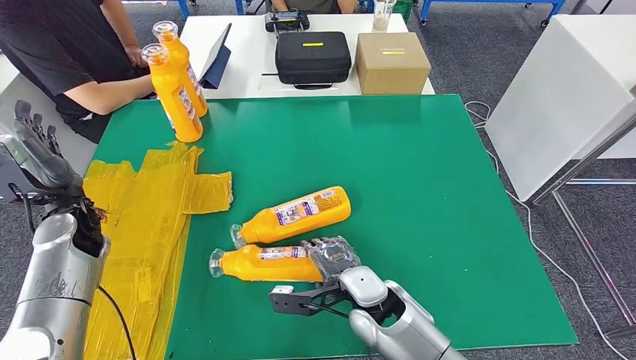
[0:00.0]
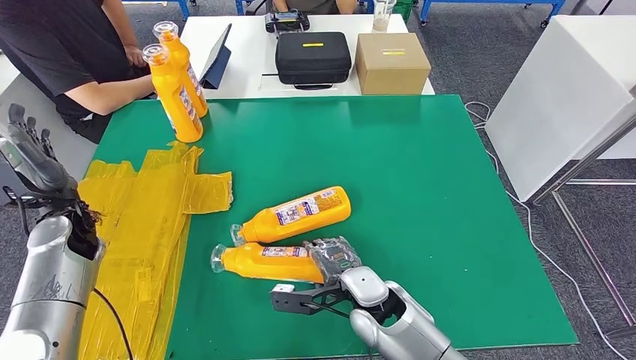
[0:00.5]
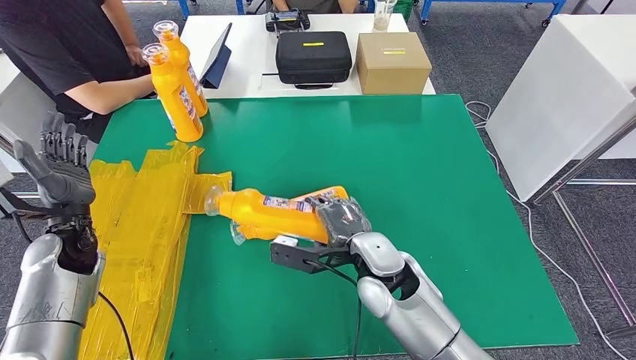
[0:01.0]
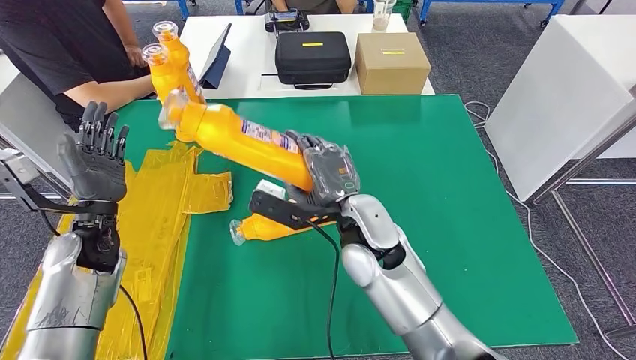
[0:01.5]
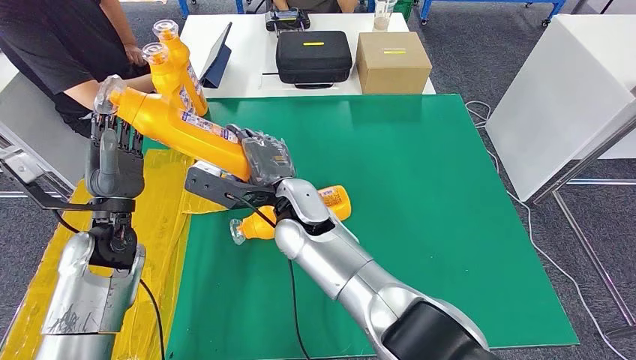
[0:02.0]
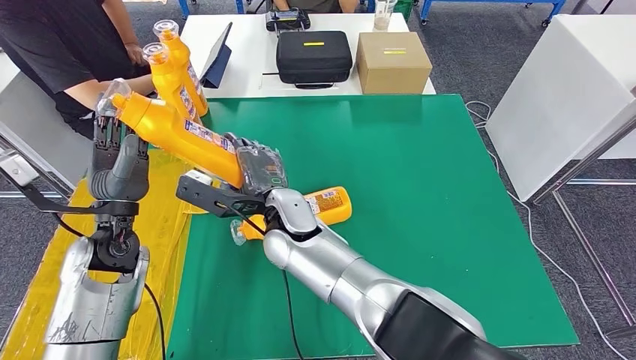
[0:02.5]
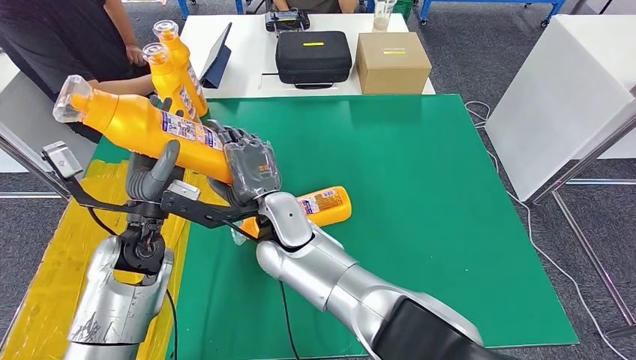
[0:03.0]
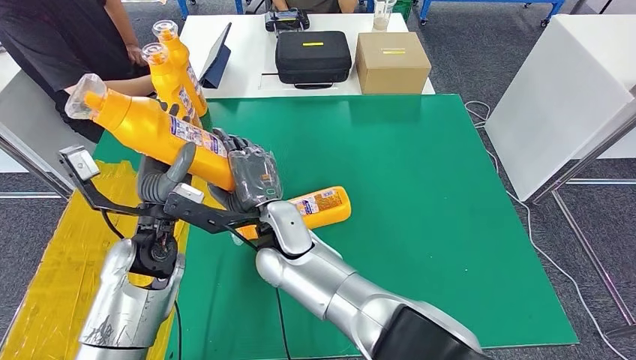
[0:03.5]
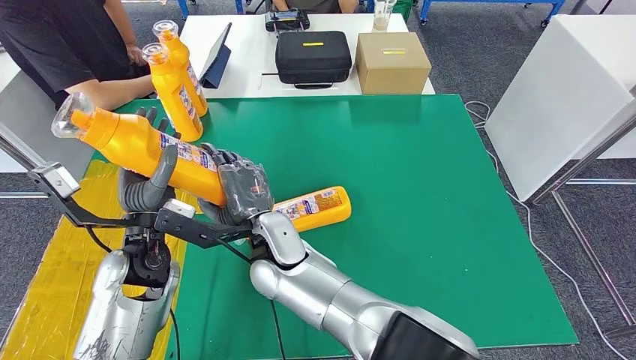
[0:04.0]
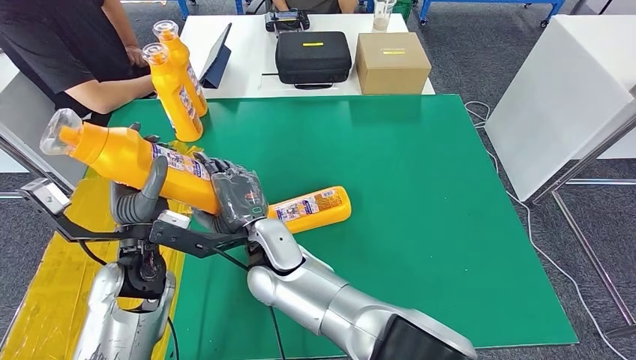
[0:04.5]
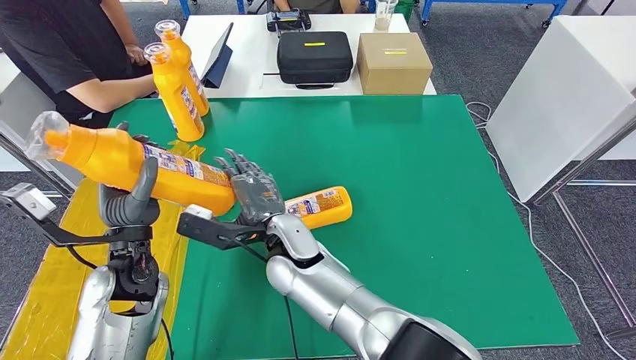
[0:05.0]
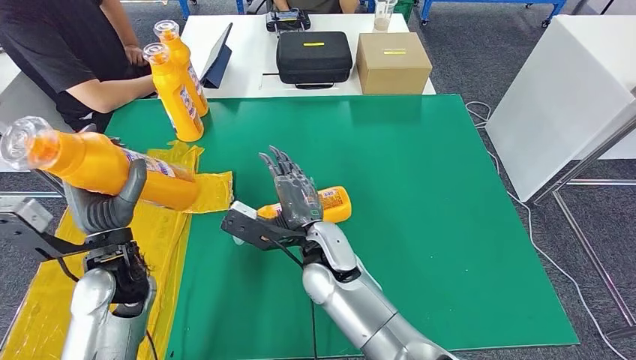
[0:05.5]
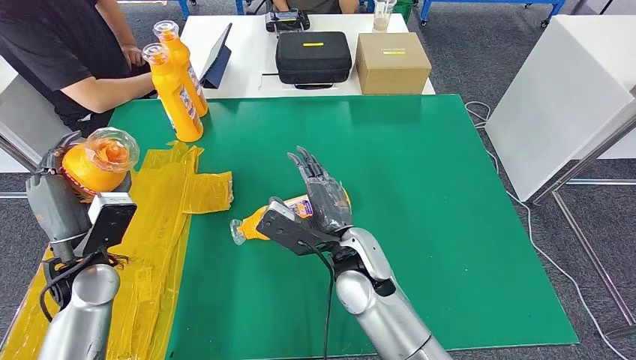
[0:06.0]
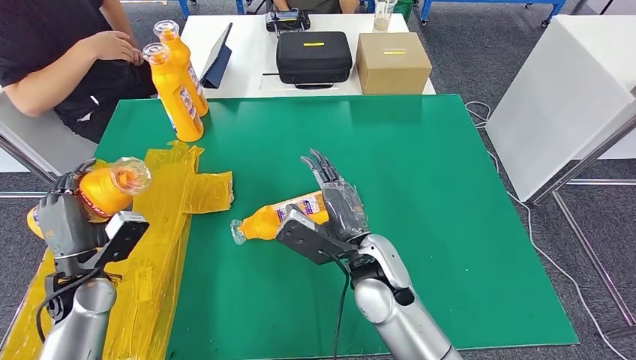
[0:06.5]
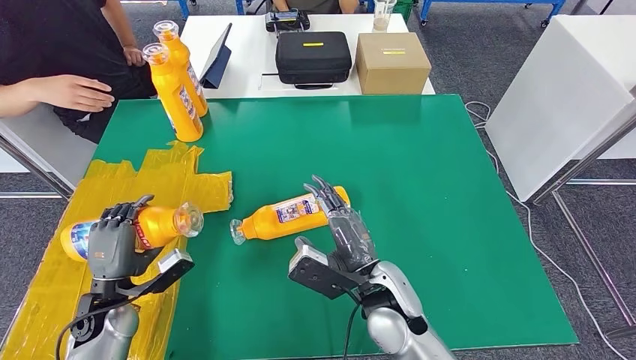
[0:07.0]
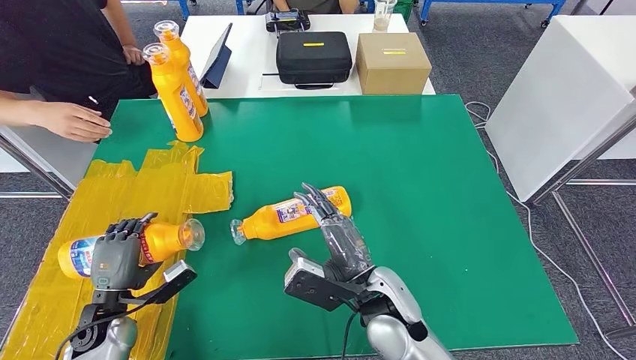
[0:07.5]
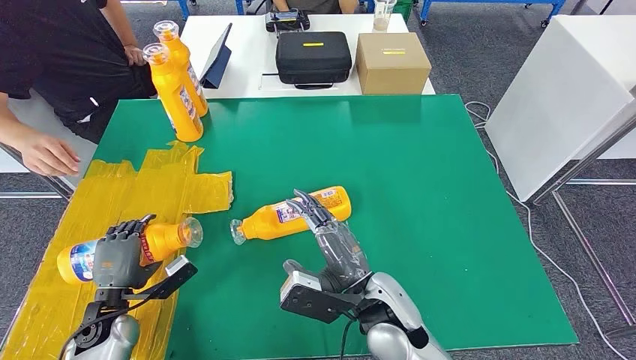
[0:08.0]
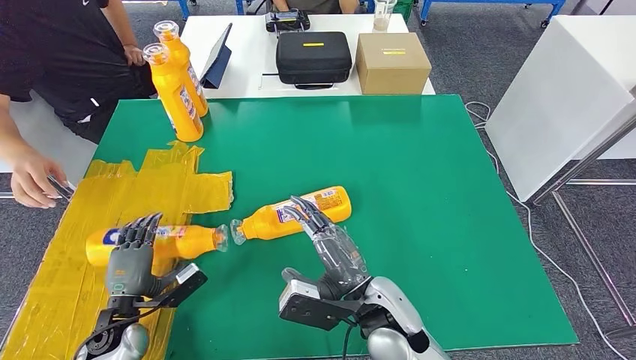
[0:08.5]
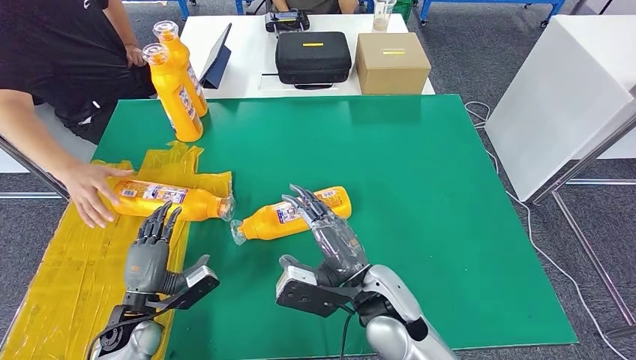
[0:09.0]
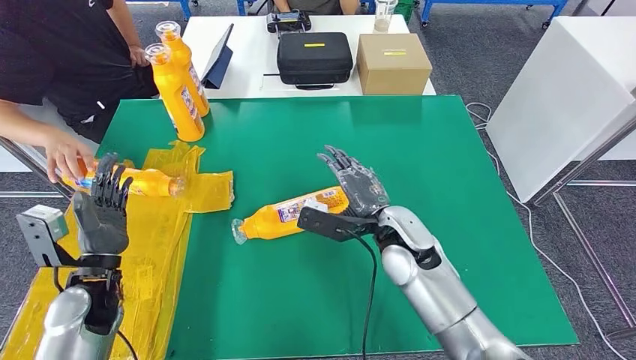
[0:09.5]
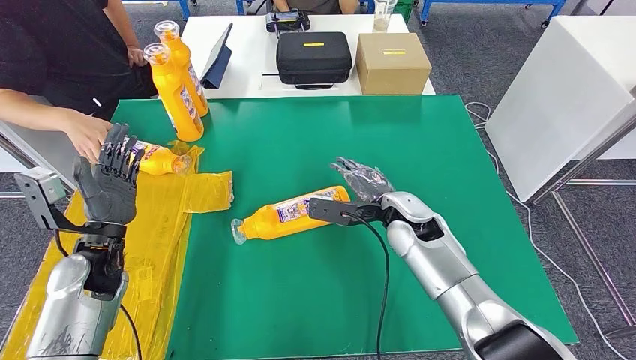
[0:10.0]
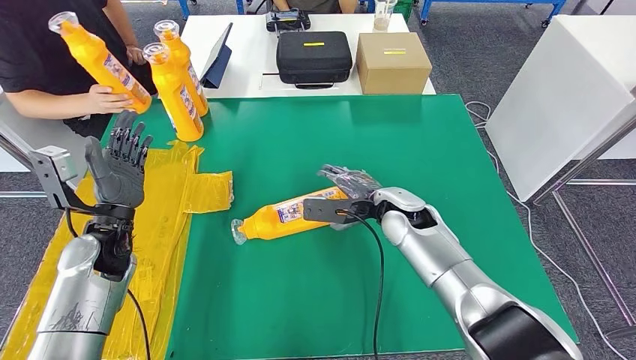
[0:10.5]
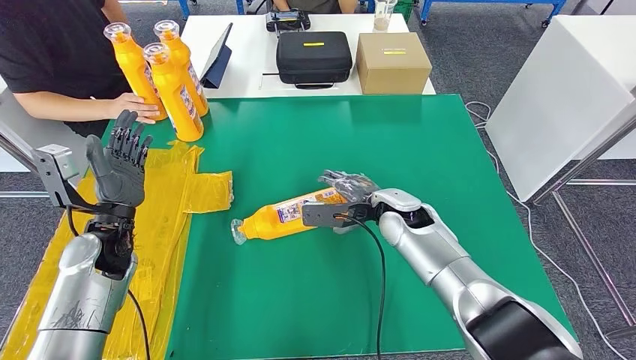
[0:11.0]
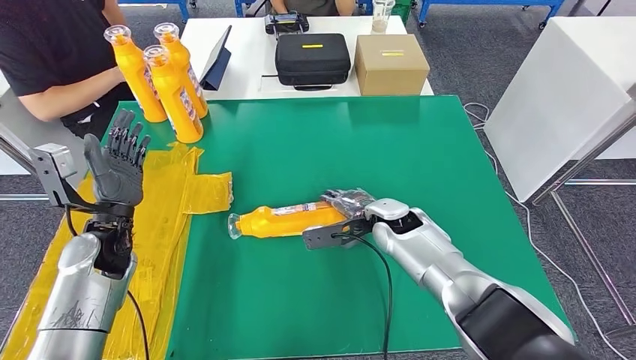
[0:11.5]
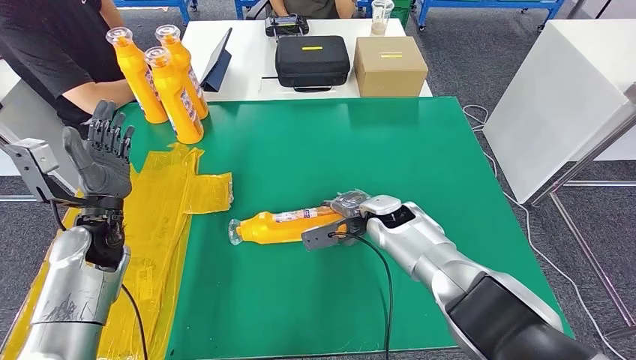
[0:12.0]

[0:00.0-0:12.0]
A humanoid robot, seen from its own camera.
Step, 0:02.0 to 0:08.0: Flip the bottle to face forward.
0:06.0 to 0:08.0: The left hand goes roughly 15 cm downward; the right hand shifts roughly 5 cm backward.

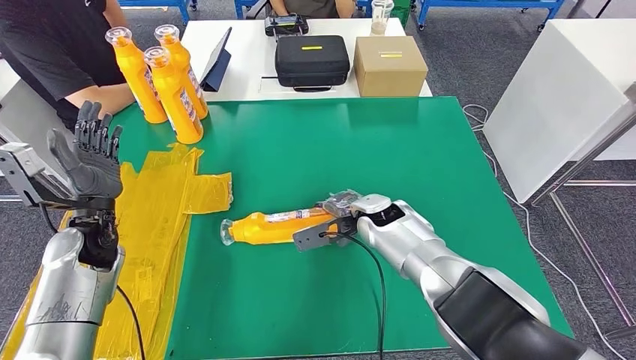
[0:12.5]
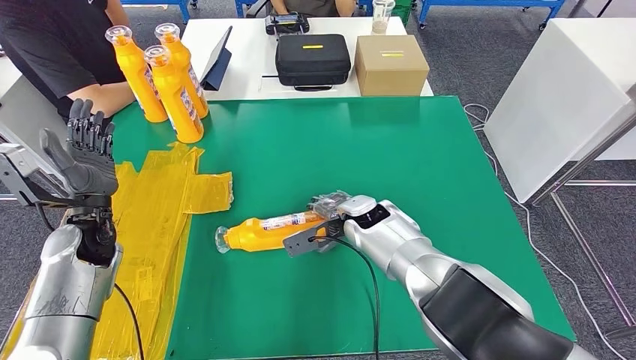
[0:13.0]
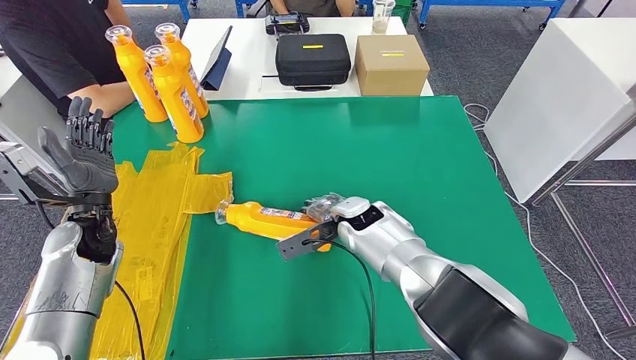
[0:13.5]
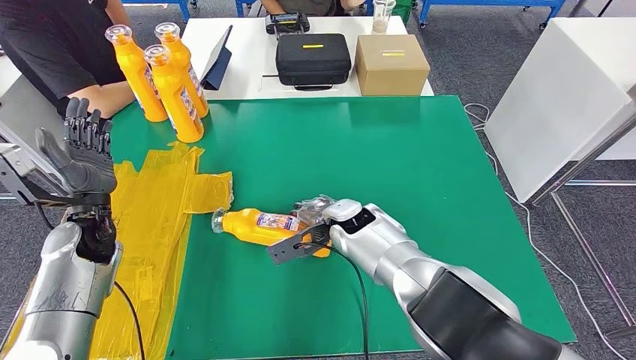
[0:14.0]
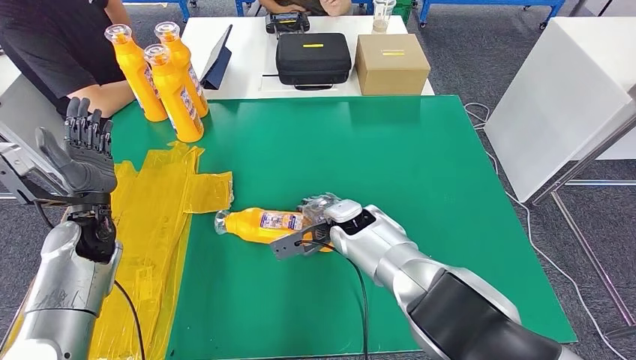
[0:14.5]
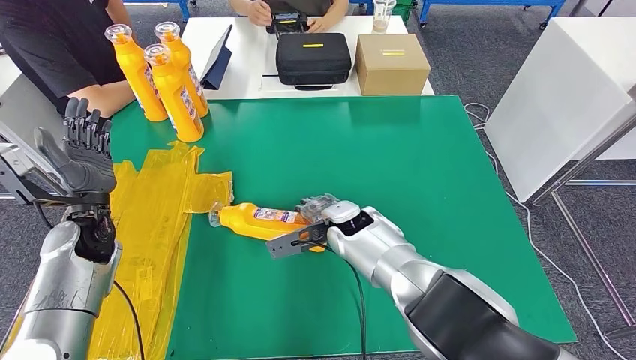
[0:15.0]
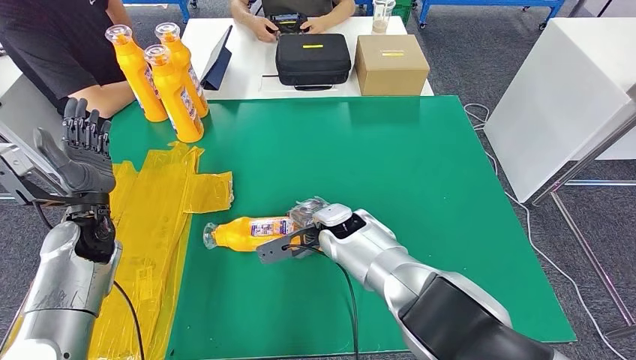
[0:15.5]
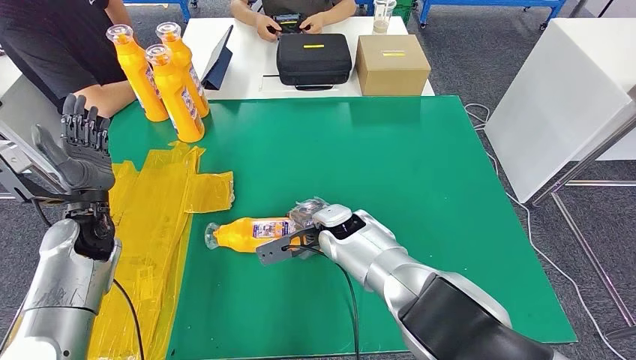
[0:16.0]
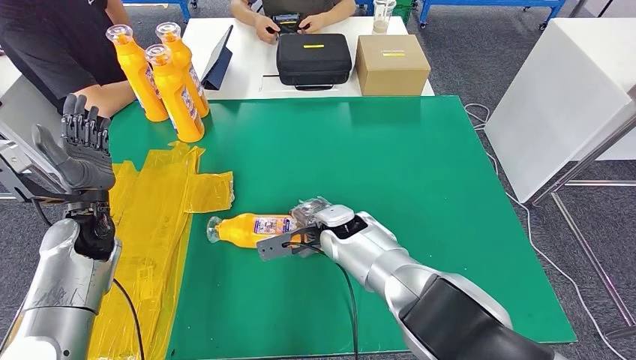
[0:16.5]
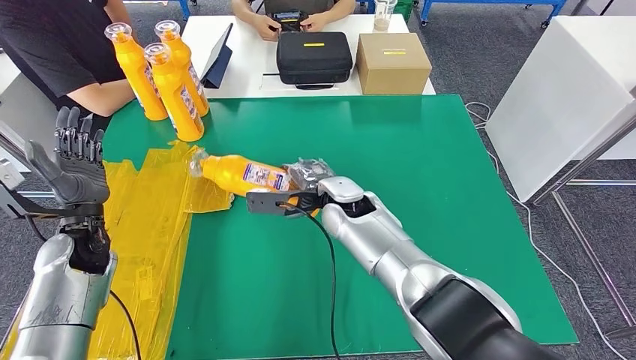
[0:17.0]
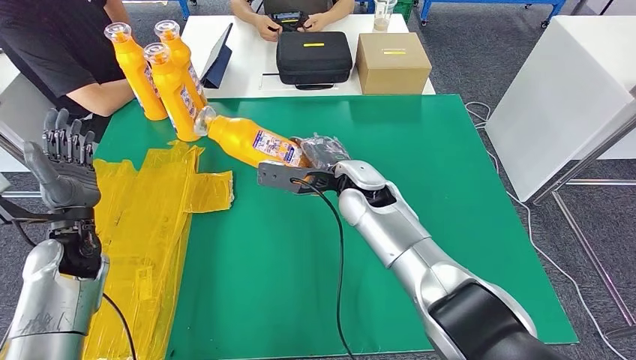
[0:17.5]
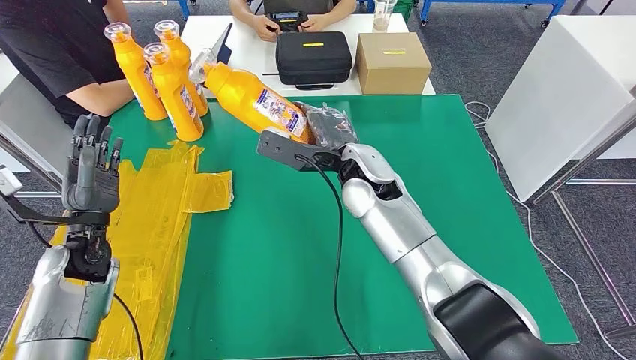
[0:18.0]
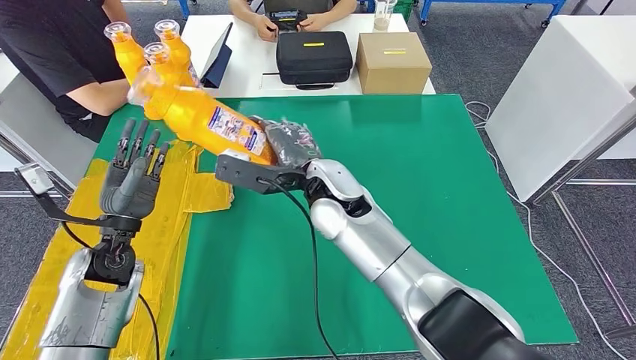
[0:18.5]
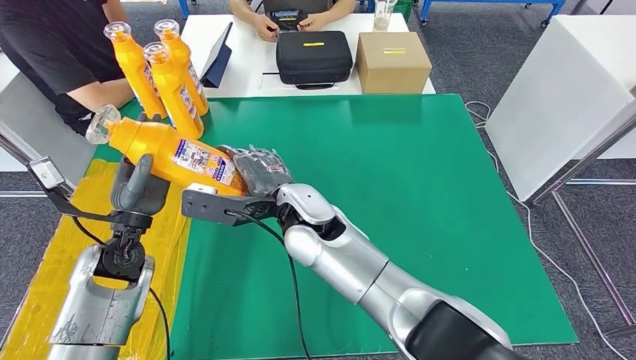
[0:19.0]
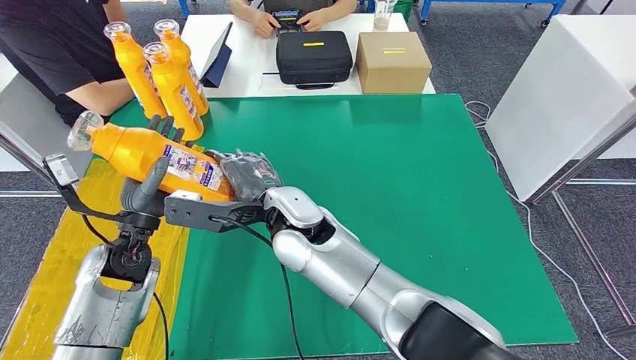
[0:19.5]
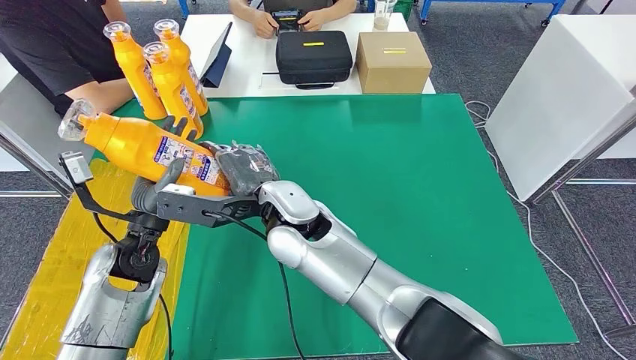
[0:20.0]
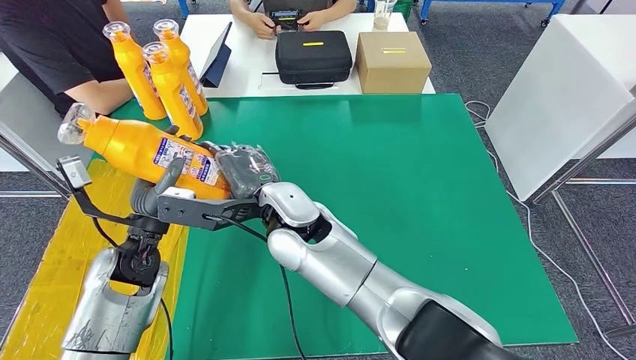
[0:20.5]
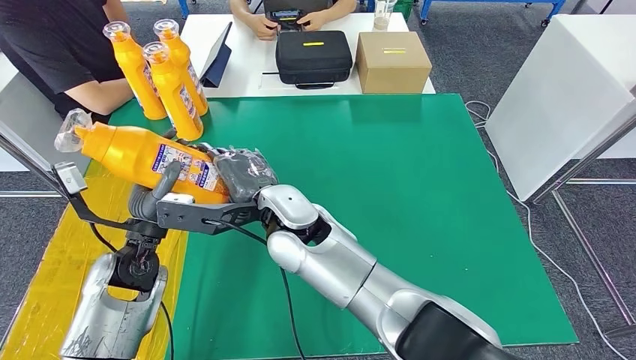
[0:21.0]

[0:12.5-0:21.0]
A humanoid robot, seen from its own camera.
Step, 0:12.5 to 0:19.5: Pick up the bottle from the table.
0:12.5 to 0:14.5: The right hand goes about 5 cm to the left.
0:14.5 to 0:16.5: There are only small adjustments of the hands.
0:19.0 to 0:21.0: The hands make only small movements.
